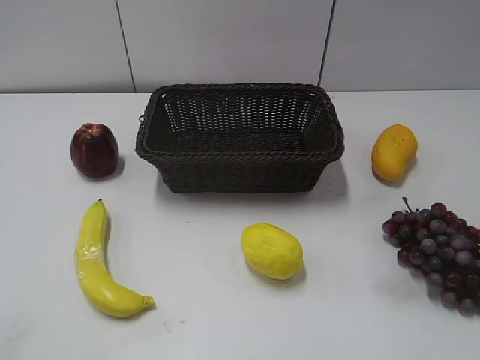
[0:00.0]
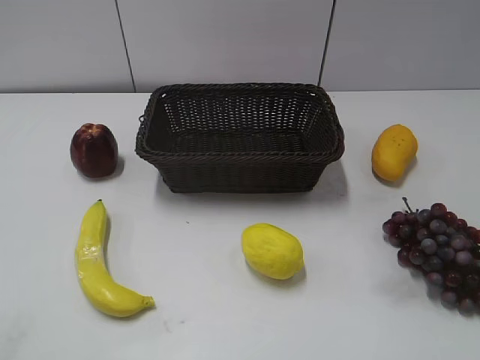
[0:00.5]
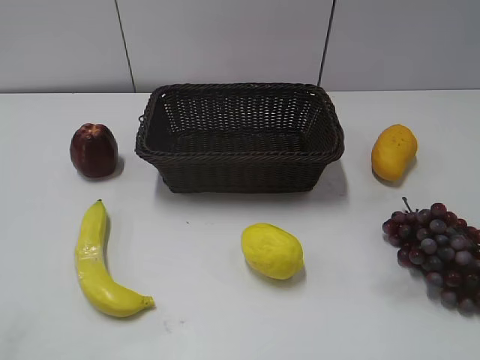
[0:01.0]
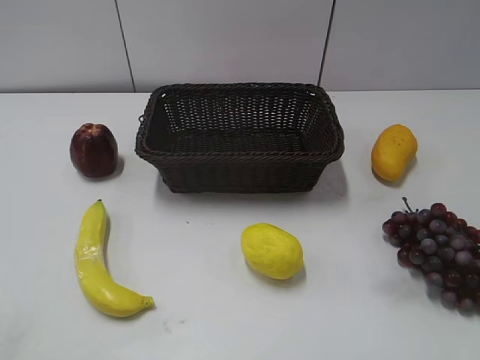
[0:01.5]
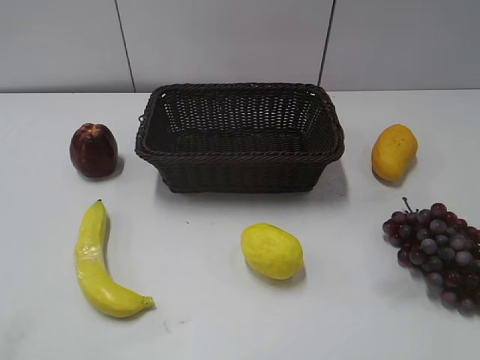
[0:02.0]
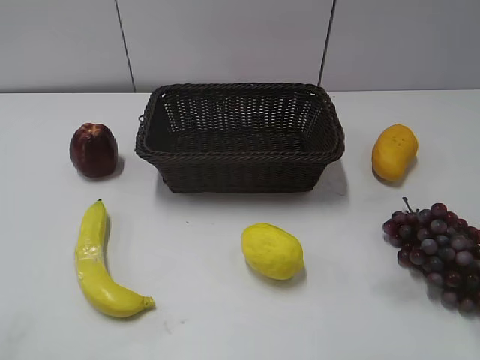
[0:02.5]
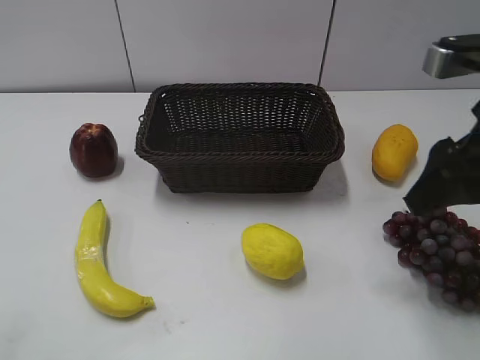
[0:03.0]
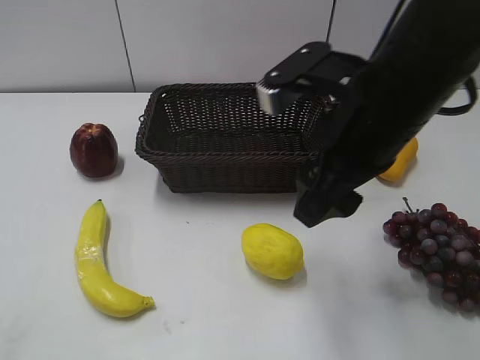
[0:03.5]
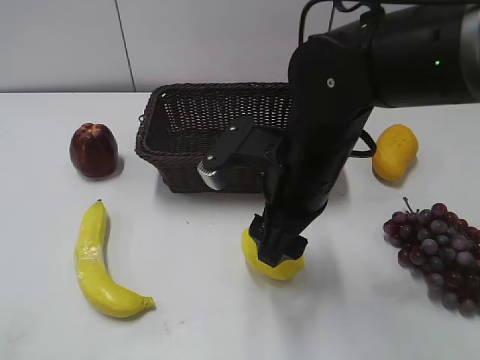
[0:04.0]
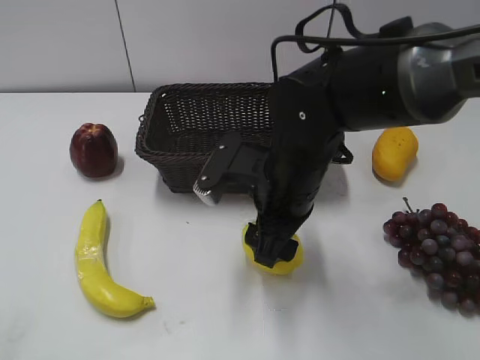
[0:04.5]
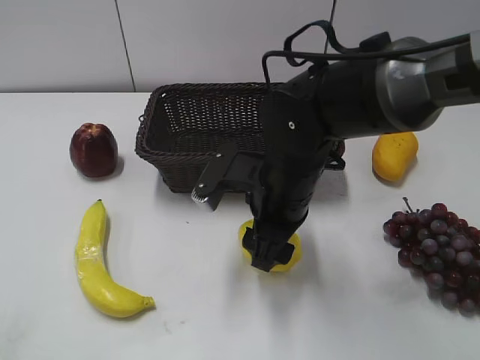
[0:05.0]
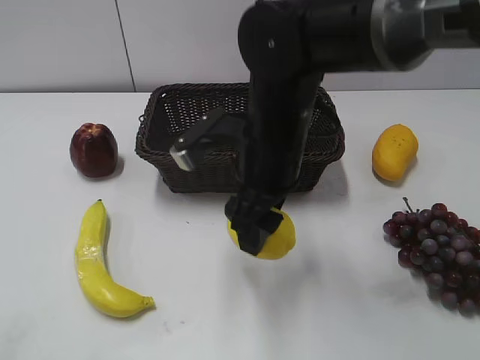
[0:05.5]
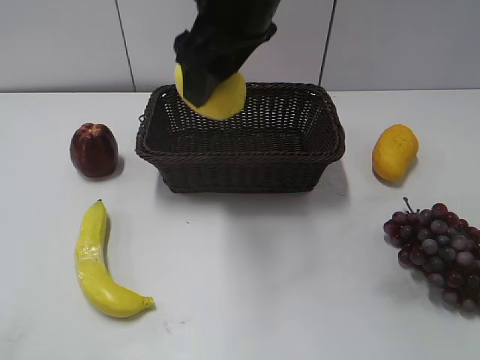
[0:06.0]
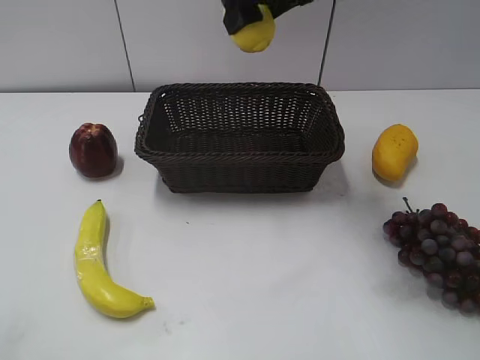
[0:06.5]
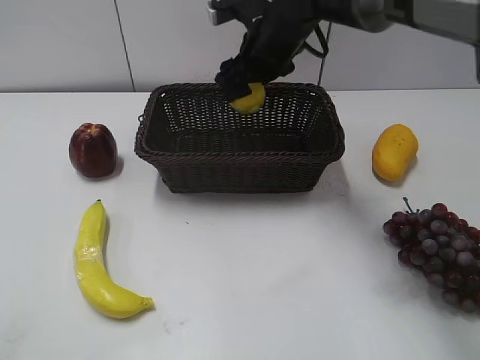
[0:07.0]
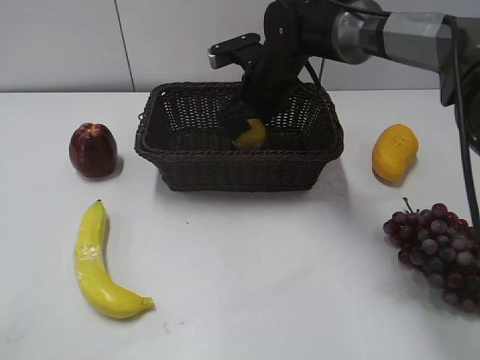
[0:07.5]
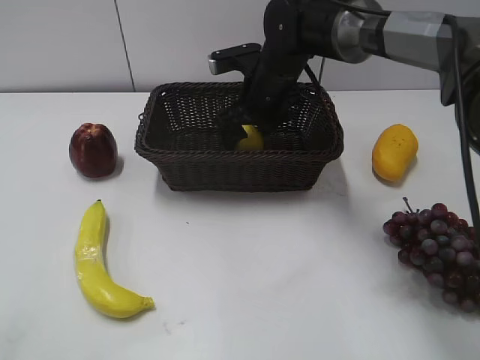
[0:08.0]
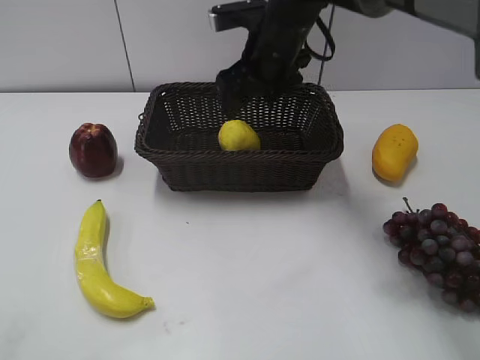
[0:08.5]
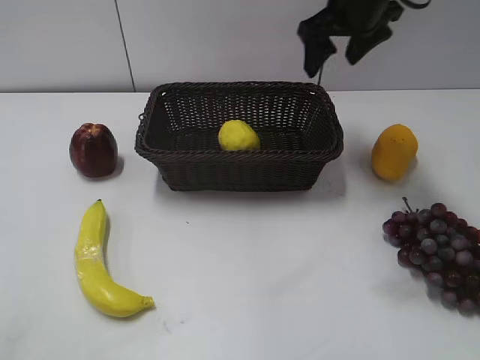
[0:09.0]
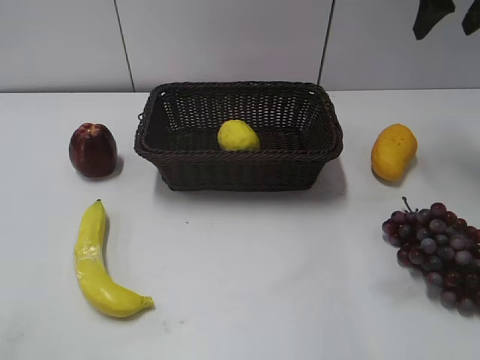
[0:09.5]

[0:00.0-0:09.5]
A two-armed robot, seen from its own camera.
Step, 0:03.0 to 0:05.0: Grasp the lemon with right gripper.
Step, 0:05.5 to 0:08.0: Place the lemon in the basket with right gripper.
0:02.0 to 0:04.0: The right gripper heads to the left, forward and downward, covering roughly 30 cm.
0:04.0 to 0:05.5: There are only small adjustments of the grippers.
0:05.5 to 0:07.5: The right gripper goes about 15 cm forward, and travels upward and back again, some 15 cm each way.
0:07.5 to 0:09.5: The right gripper heads to the right and upward, covering about 30 cm, and opens.

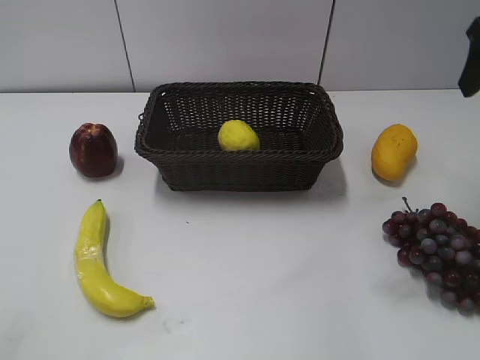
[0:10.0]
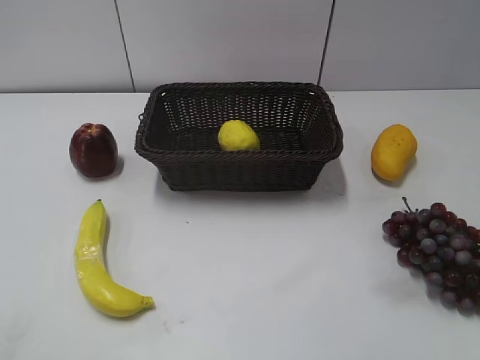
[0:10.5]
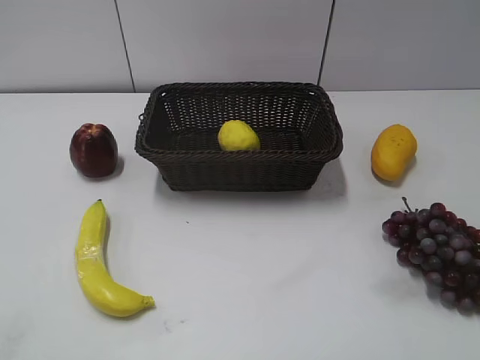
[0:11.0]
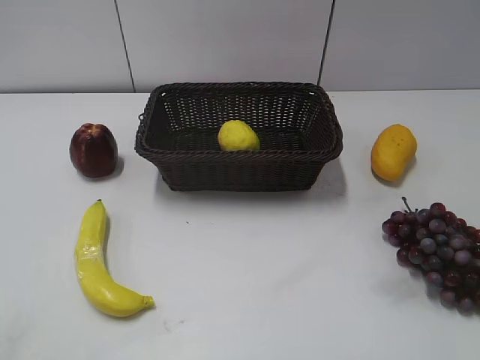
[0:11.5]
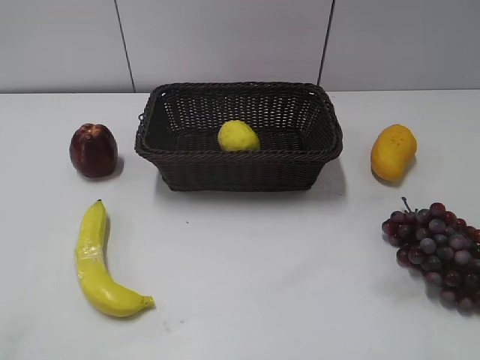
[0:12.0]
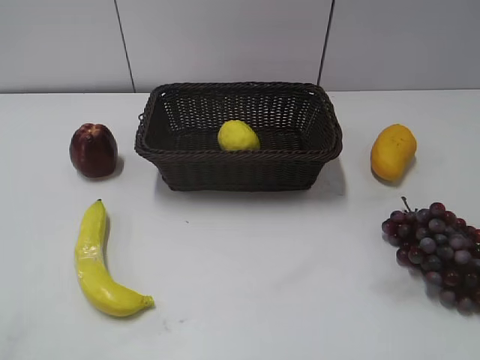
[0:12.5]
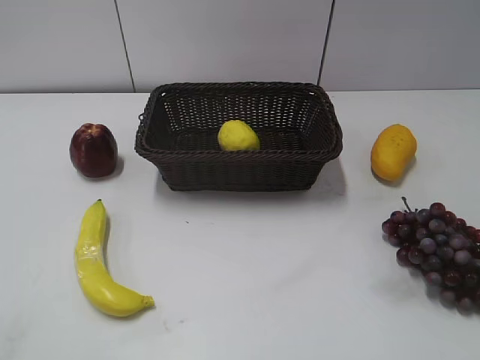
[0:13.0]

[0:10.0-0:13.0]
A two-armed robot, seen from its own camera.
0:10.0 to 0:11.5: The right gripper shifts approximately 25 cm backward.

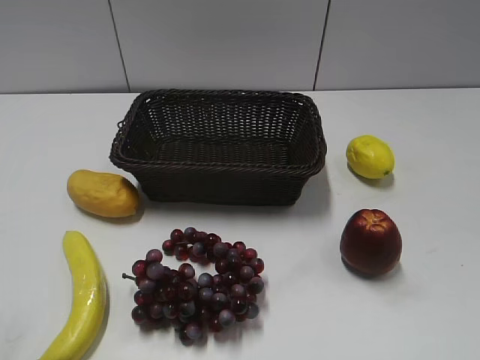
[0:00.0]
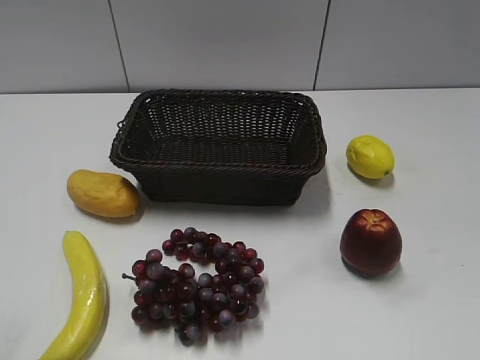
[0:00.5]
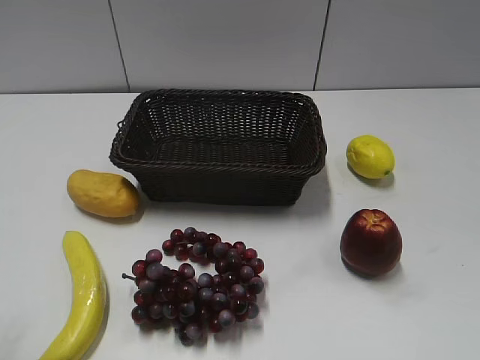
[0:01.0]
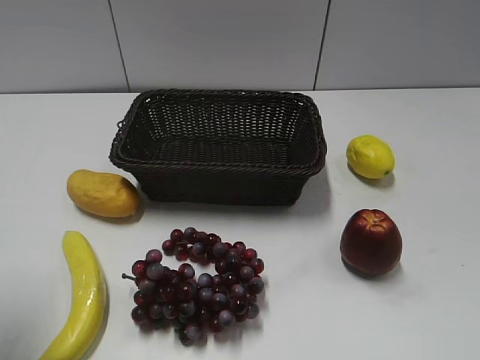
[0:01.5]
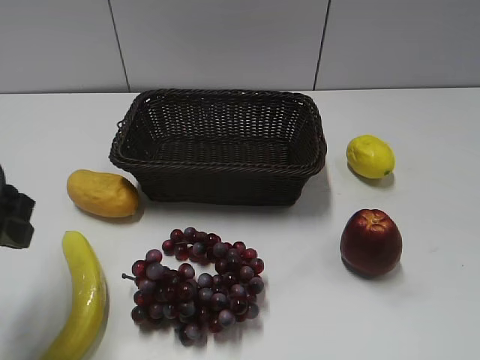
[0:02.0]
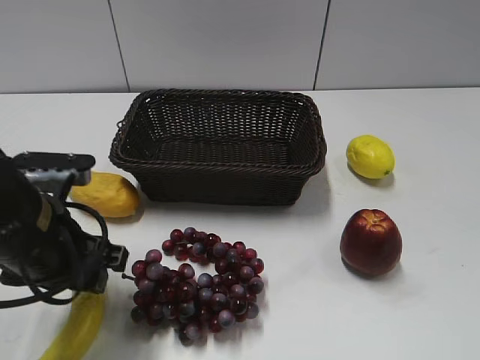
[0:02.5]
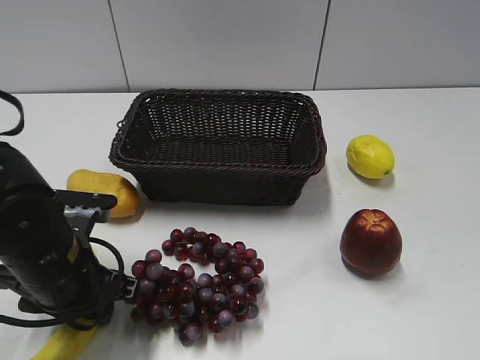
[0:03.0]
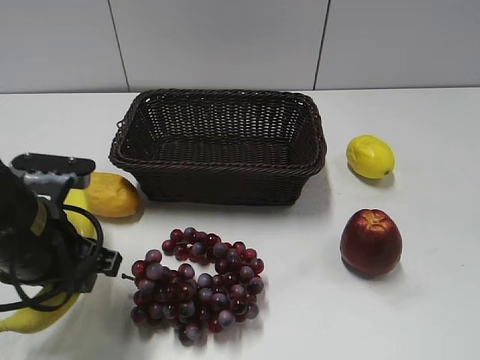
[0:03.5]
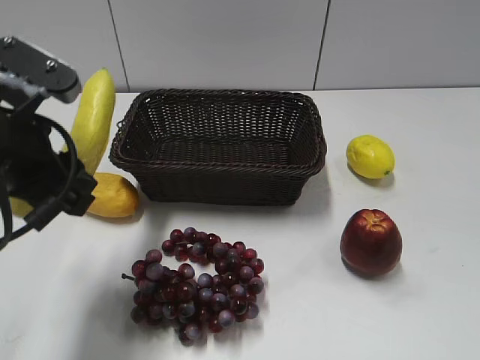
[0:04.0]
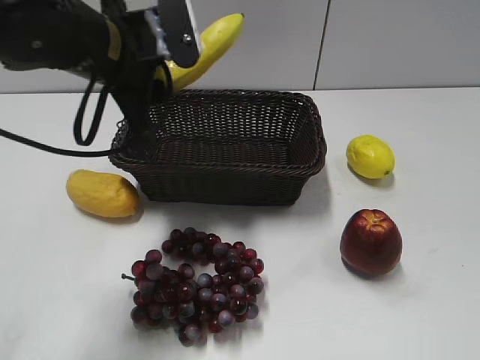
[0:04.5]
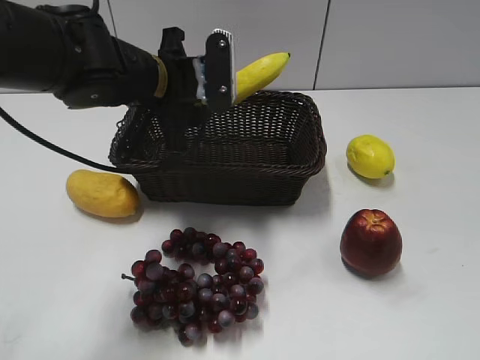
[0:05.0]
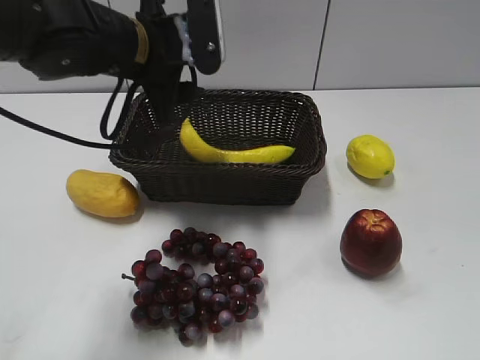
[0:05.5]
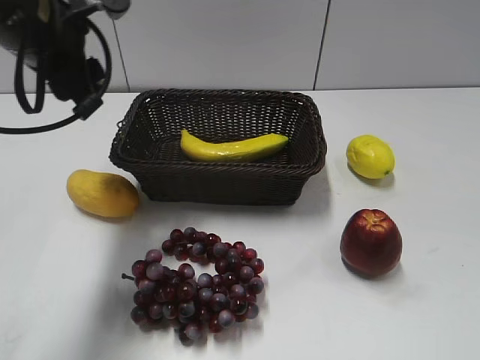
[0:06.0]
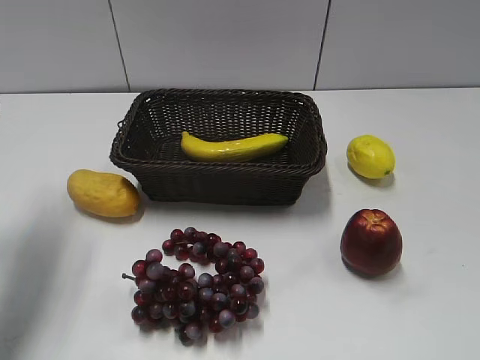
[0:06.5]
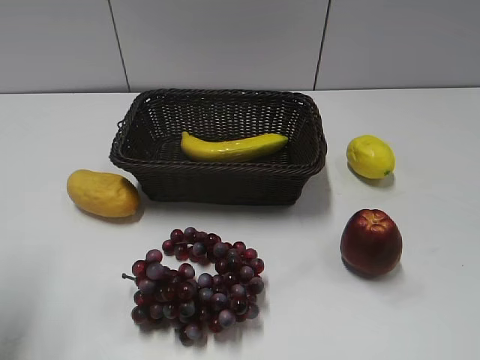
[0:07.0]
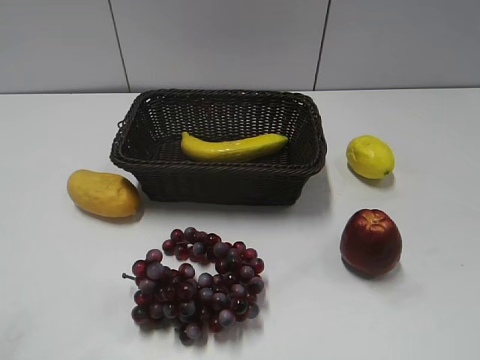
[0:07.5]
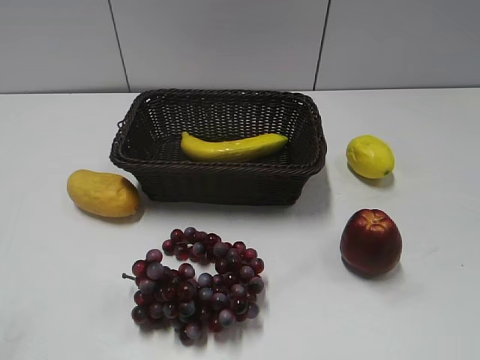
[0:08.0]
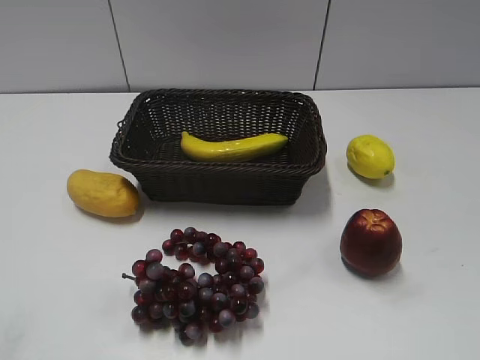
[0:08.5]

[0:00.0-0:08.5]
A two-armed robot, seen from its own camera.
Step, 0:02.0 to 0:03.0: Grasp the banana with left gripper.
Step, 0:03.5 to 0:05.0: Place the banana in the basket with left gripper.
0:02.0 to 0:04.0: The left gripper reaches about 10 cm downward, then returns, and closes up.
0:04.0 to 0:06.5: The left gripper shifts some 15 cm to the left and forward, and opens up.
0:06.5 to 0:08.5: The left gripper travels backward by approximately 30 cm.
